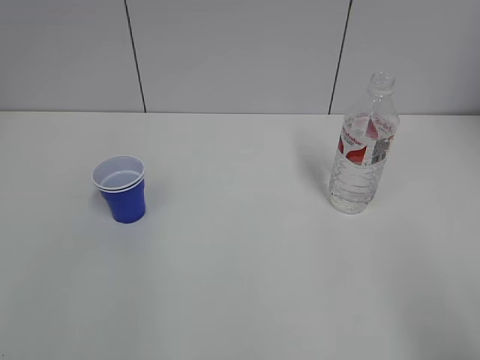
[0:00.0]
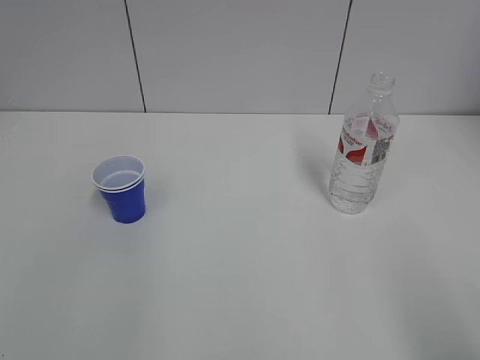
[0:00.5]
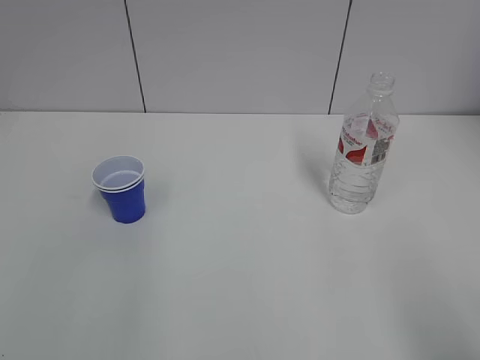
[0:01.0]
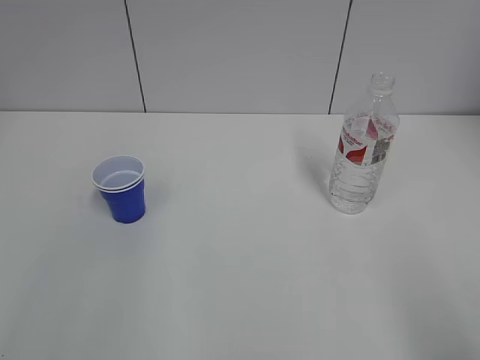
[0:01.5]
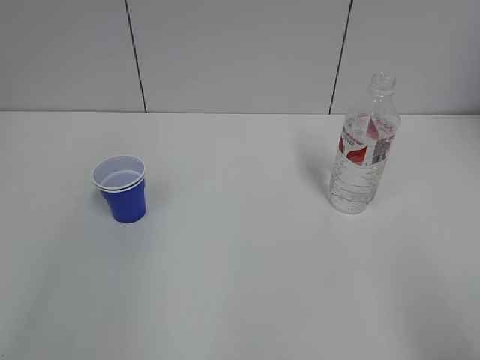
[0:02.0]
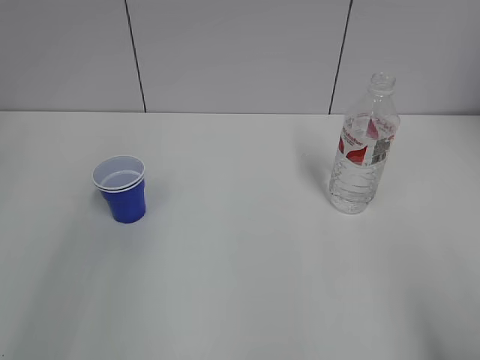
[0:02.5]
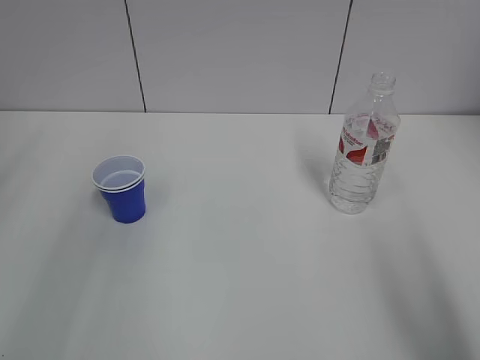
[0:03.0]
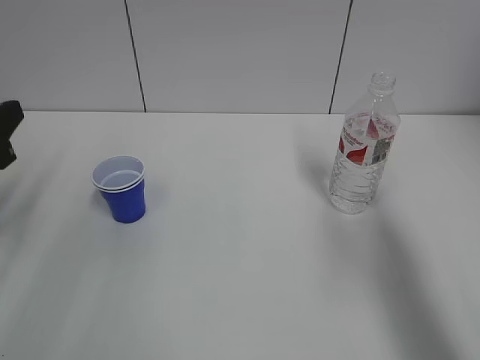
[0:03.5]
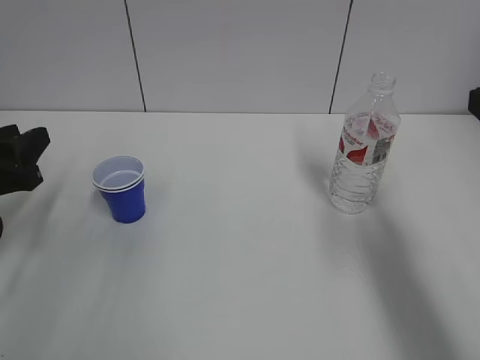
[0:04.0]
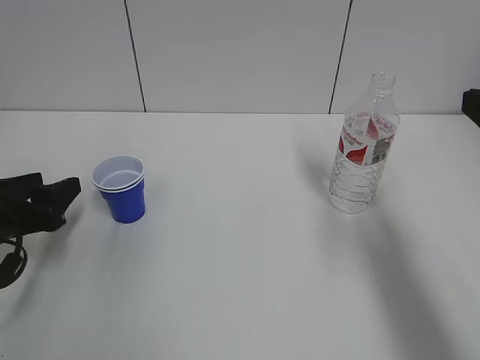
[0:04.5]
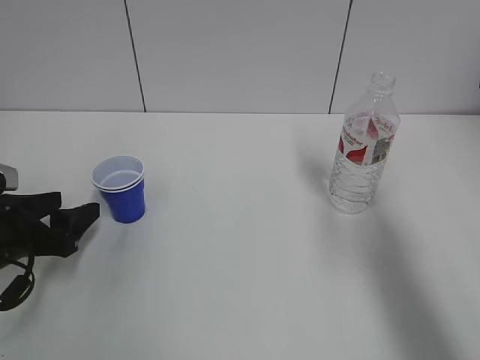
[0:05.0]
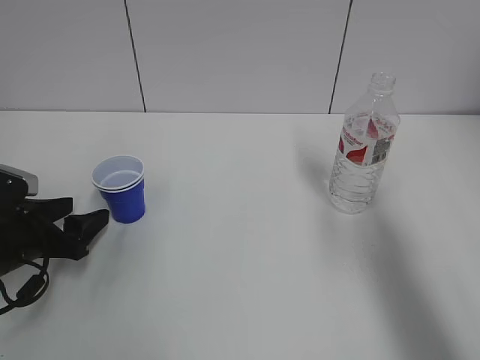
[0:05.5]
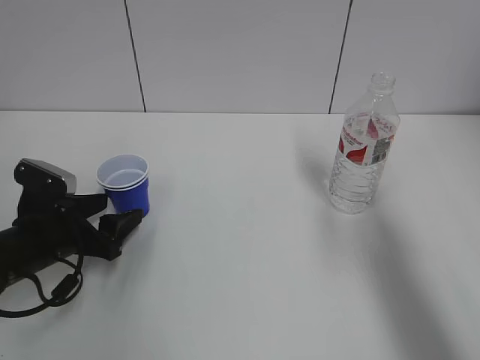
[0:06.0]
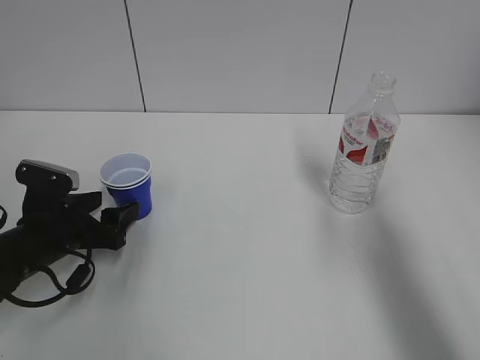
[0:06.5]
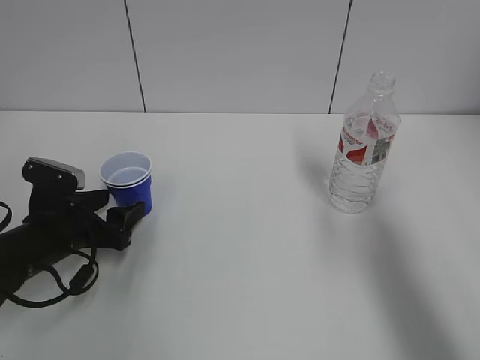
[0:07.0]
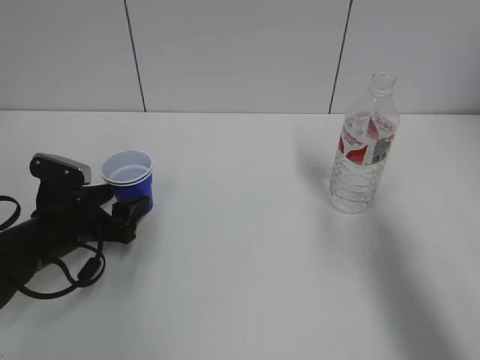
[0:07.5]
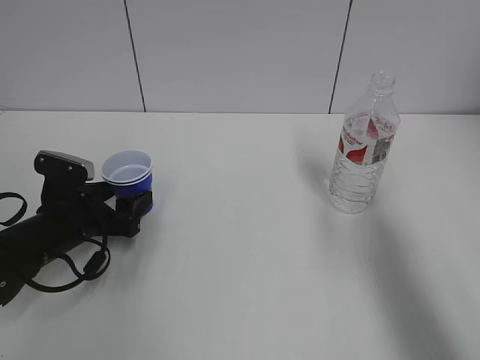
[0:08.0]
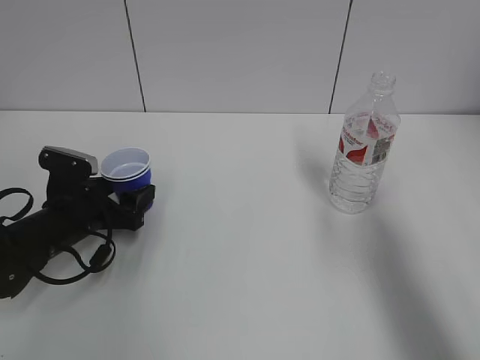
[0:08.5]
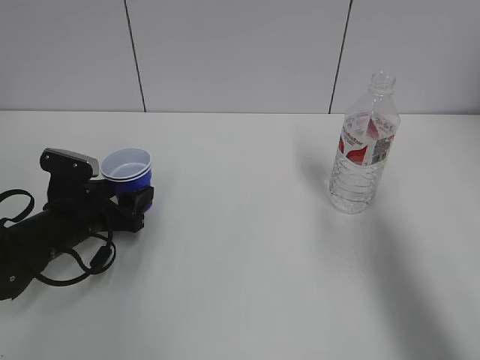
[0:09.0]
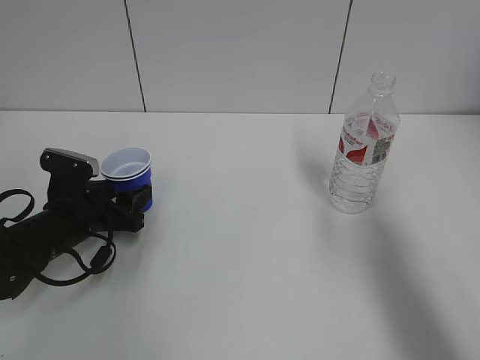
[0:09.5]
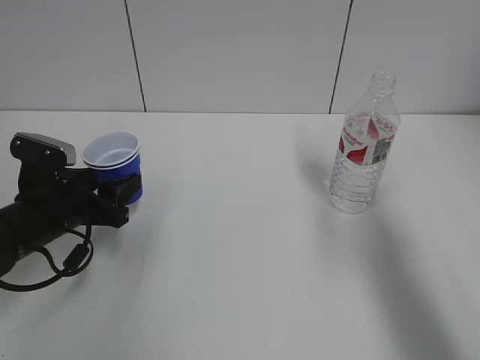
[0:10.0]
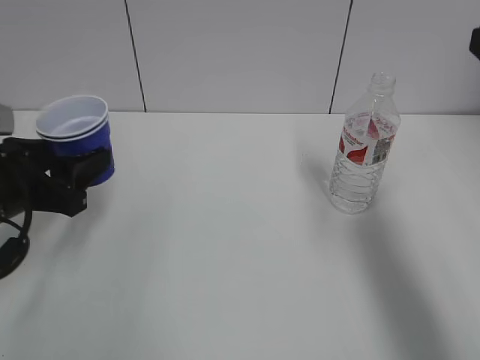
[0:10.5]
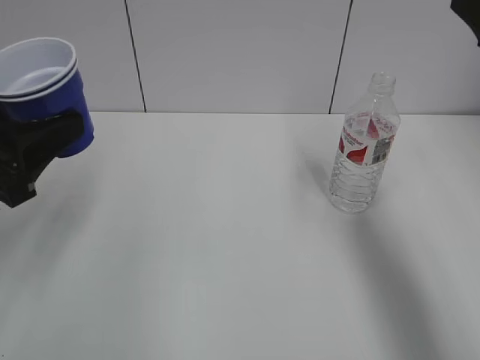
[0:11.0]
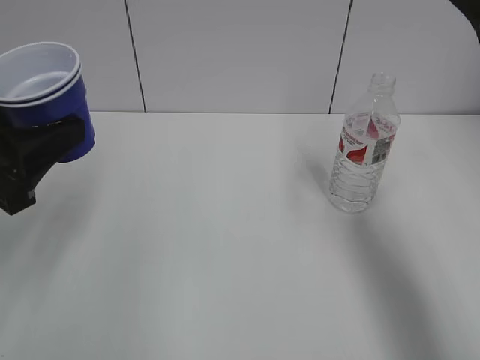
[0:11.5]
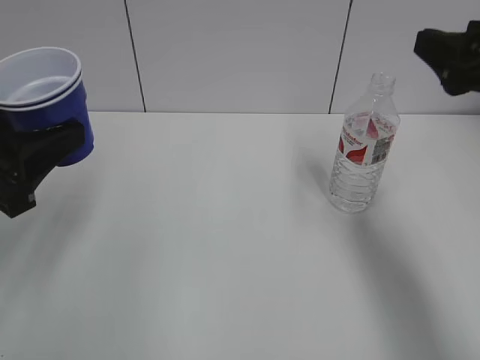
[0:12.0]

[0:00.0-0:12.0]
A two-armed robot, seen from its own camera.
Step, 0:00.0 to 0:09.5: Grab the paper cup with the left hand.
0:02.0 to 0:04.0: The left gripper moves forward and downward, approximately 25 cm. Meanwhile the right gripper shifts some 20 cm forward.
0:04.0 to 0:06.0: The left gripper shifts some 10 cm downward and to the right, and opens.
0:06.0 to 0:08.0: The grippers make only small movements.
0:08.0 to 0:10.0: The left gripper closes its fingers.
0:10.0 to 0:12.0: The left gripper goes about 20 cm upward and backward, while the right gripper travels forward by about 5 cm.

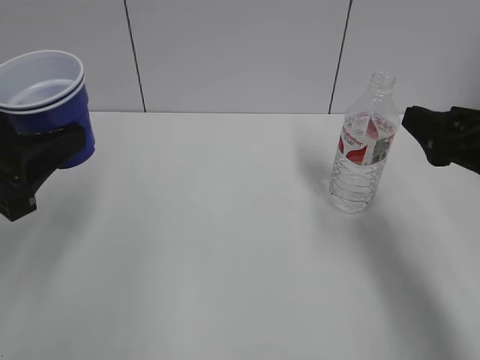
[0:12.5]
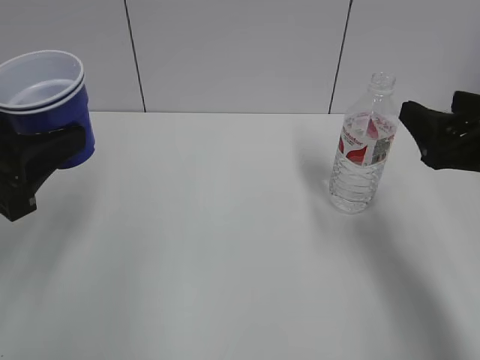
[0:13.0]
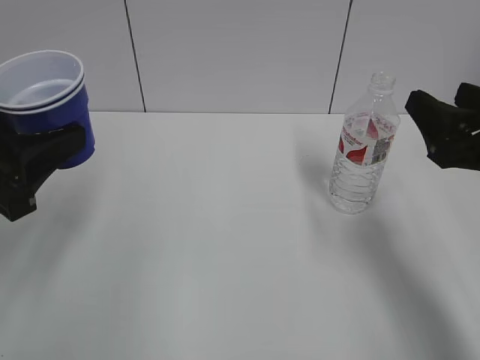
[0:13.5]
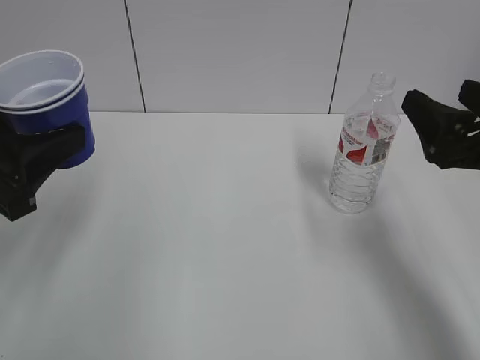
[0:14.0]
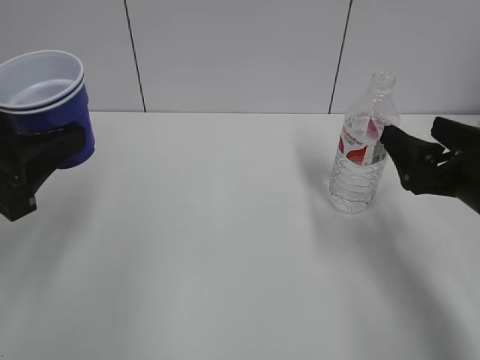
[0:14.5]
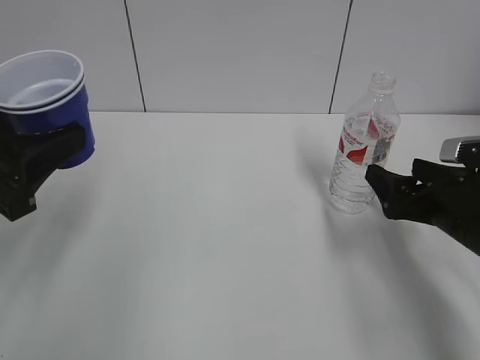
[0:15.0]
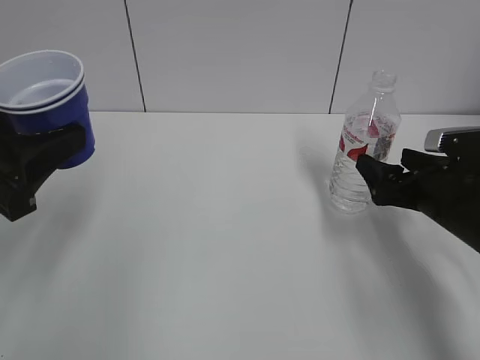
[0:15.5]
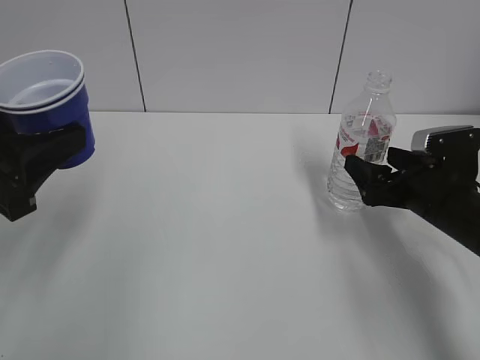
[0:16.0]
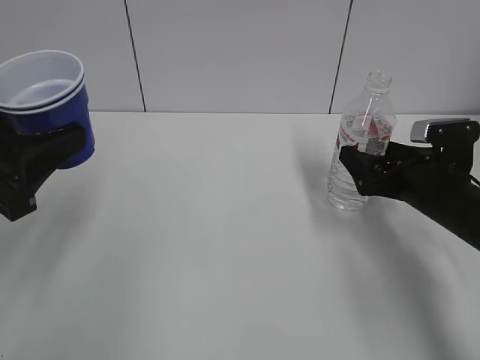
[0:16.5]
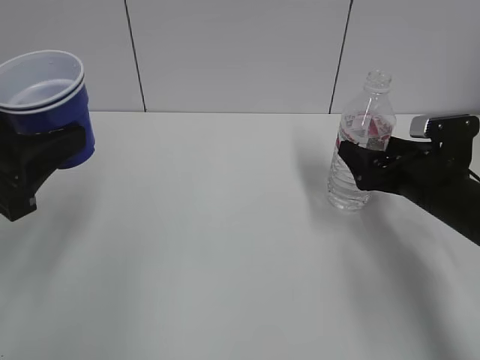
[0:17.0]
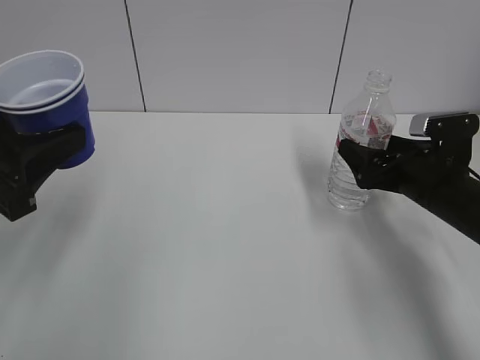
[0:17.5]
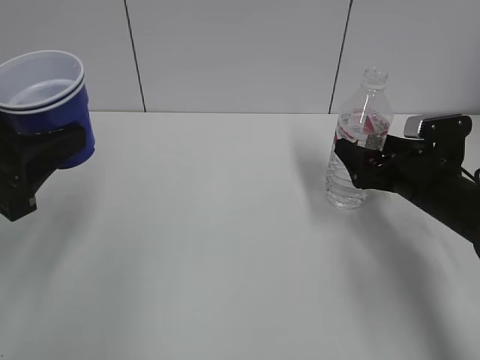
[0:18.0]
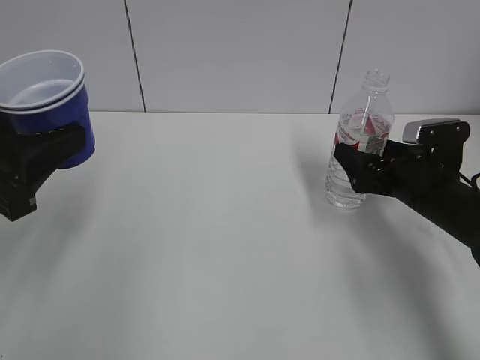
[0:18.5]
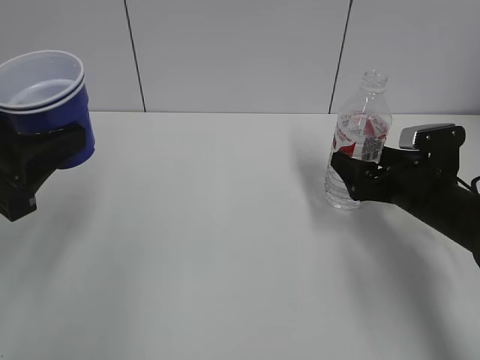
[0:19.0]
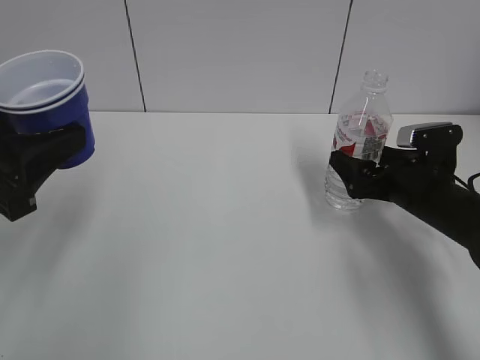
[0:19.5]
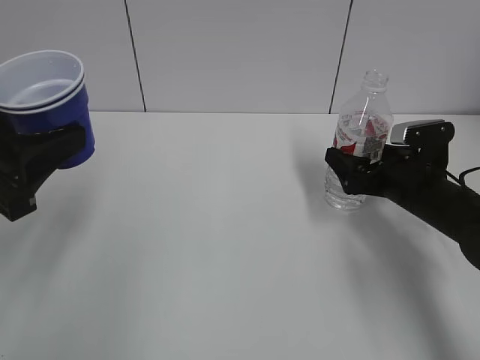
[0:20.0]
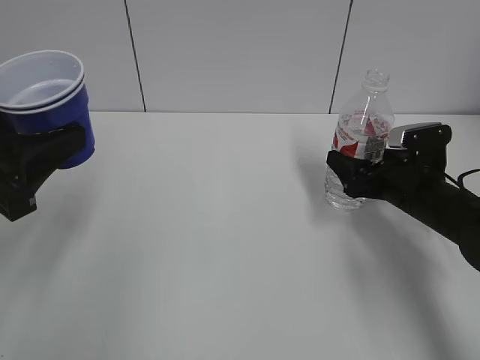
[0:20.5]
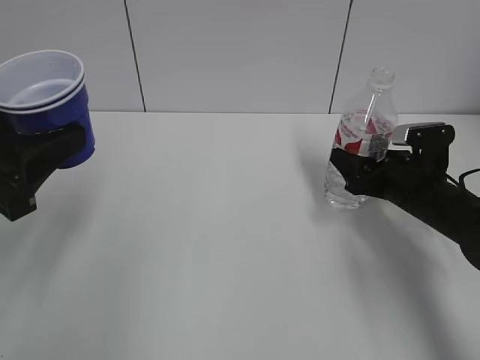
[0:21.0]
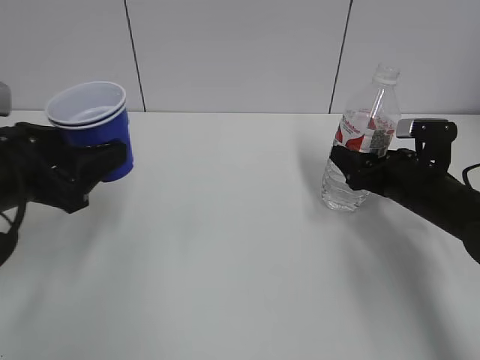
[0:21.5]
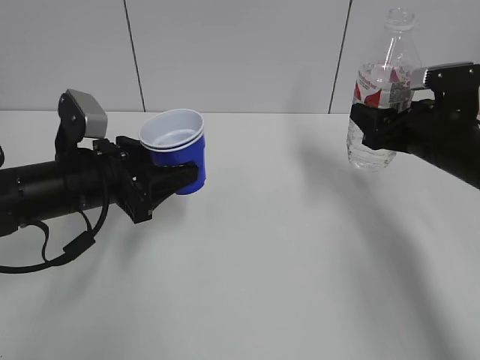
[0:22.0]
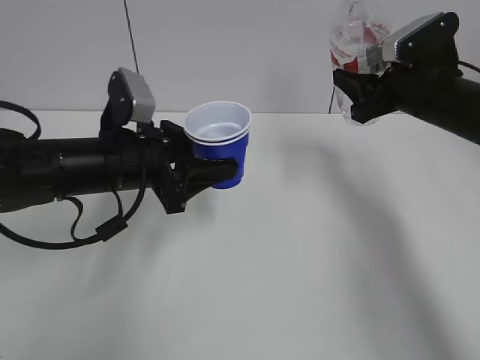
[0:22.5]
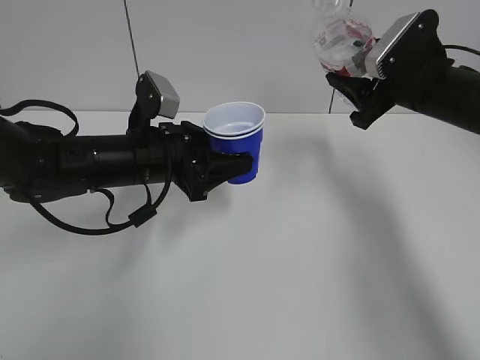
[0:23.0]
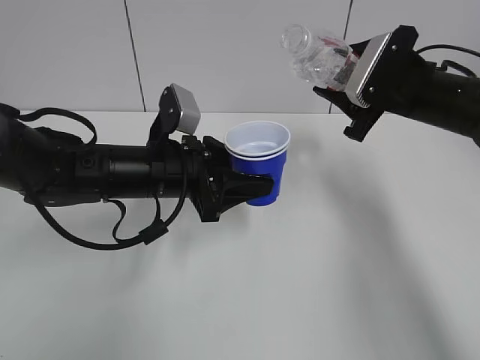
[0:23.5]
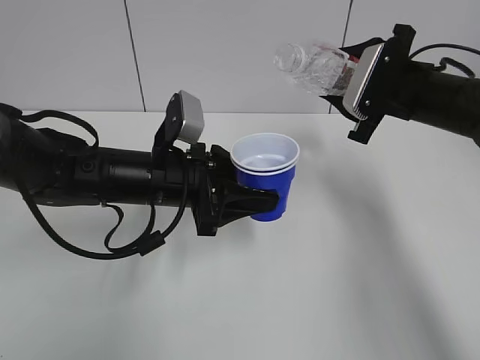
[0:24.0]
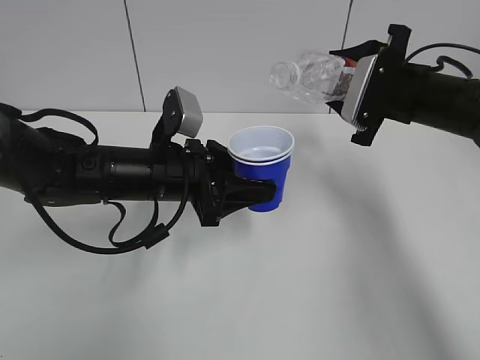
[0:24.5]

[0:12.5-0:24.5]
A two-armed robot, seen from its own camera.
Step, 0:12.5 to 0:21.0: Grab the water bottle with the right hand.
0:12.5 to 0:14.5: The right gripper shifts roughly 5 cm downward, and opens.
0:14.5 to 0:16.5: The right gripper travels forward and downward by roughly 10 cm.
0:16.5 to 0:18.5: The grippers stay close to where they were, moving slightly.
0:18.5 to 0:20.5: The right gripper closes its fingers.
0:20.5 to 0:22.5: The left gripper shifts roughly 20 cm forward, to the right and downward, while the right gripper moves upward, some 10 cm.

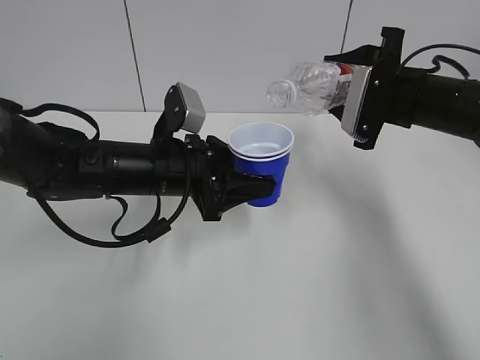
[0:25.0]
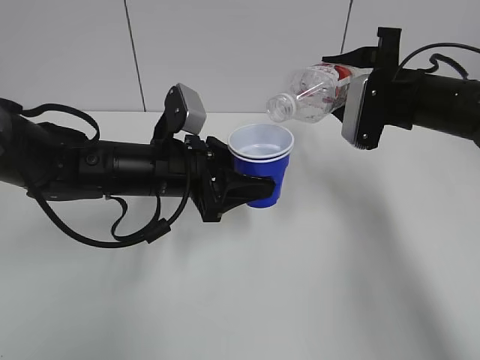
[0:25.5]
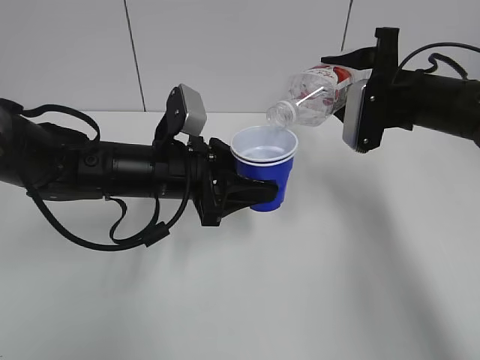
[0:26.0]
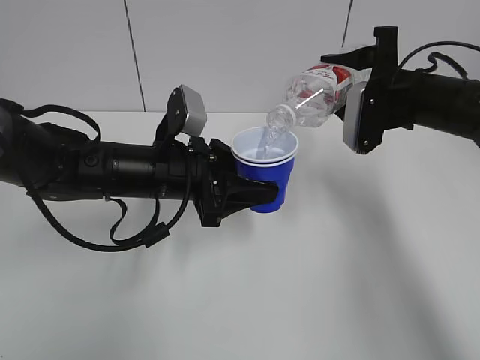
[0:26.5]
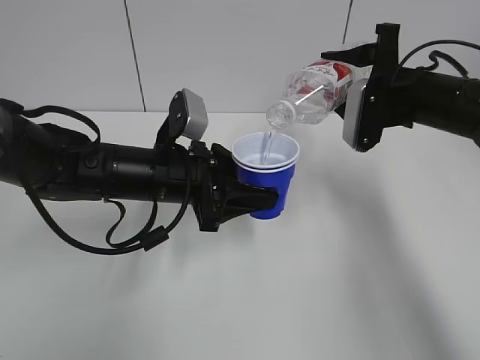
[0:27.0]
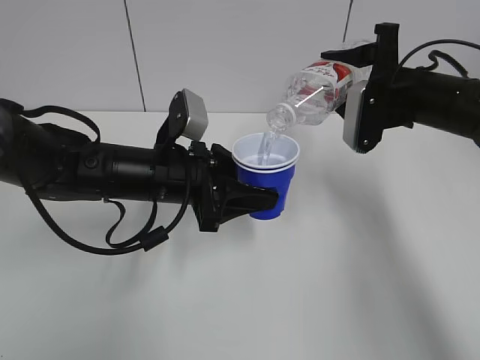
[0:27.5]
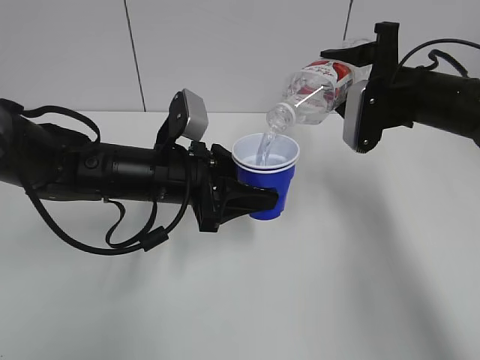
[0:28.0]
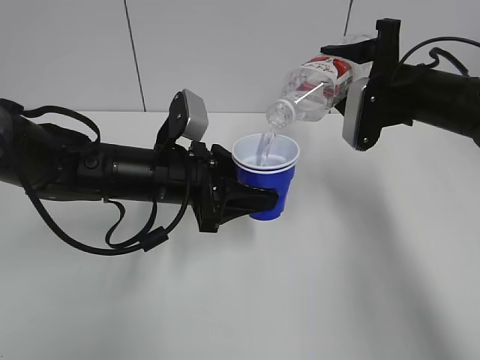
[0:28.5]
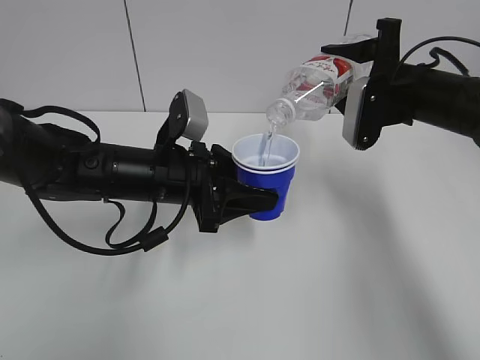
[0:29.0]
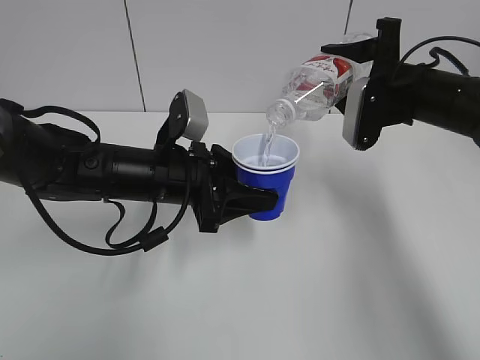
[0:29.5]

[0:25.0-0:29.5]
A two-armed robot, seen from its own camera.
0:25.0 to 0:27.0: The grippers stay close to where they were, moving slightly.
0:27.0 to 0:29.5: Both grippers stay put.
